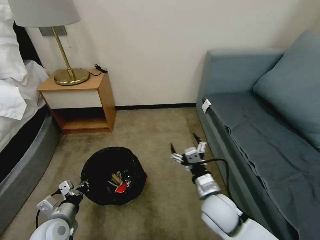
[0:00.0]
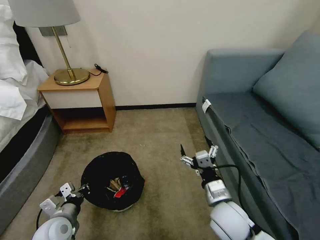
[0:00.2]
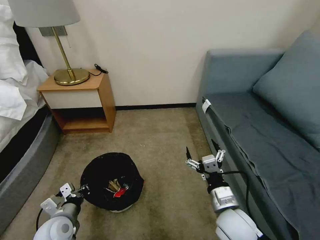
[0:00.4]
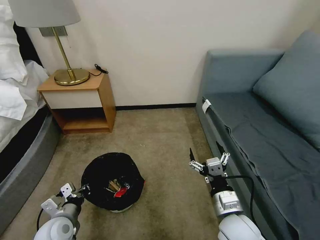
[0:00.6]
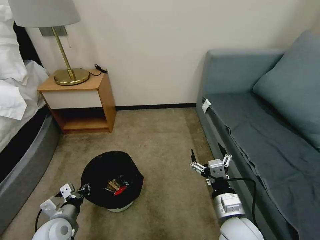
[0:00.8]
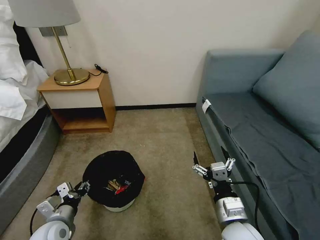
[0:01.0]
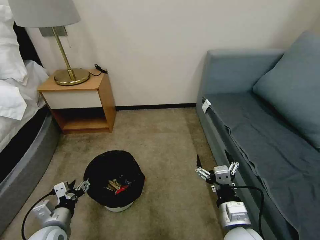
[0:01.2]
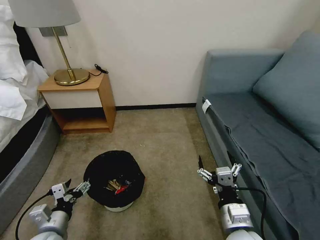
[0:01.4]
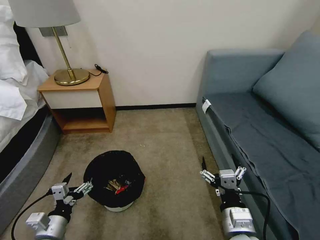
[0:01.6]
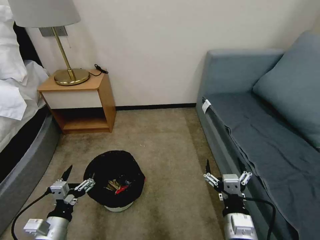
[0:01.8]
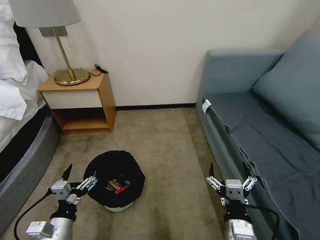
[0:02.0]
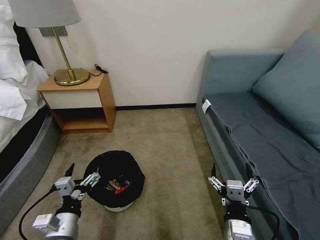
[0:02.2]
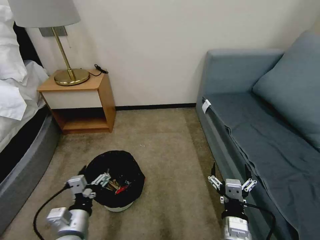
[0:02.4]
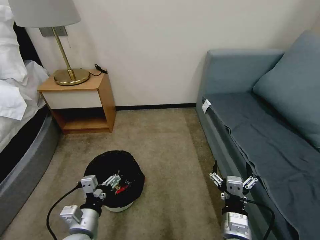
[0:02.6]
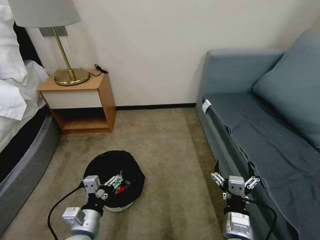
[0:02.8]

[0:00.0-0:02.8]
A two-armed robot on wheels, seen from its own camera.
Task of the whole recording: Pick up the trash bin, then pick up the garbage on the floor and place it into the trash bin.
0:00.0 to 0:01.4: The right gripper shifts some 10 cm backward, while the left gripper opens up.
0:01.4 to 0:02.8: The left gripper moves to the right, approximately 10 cm.

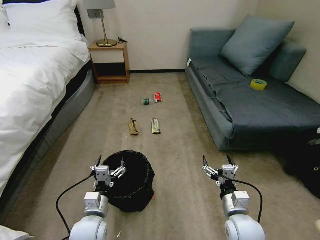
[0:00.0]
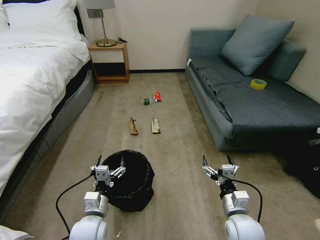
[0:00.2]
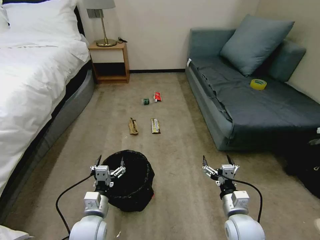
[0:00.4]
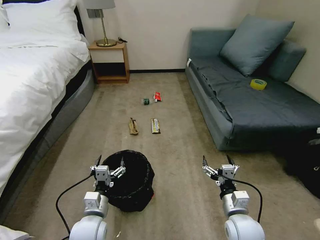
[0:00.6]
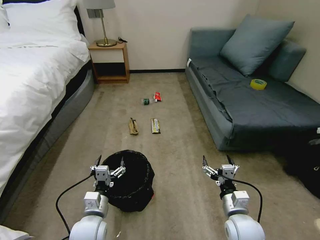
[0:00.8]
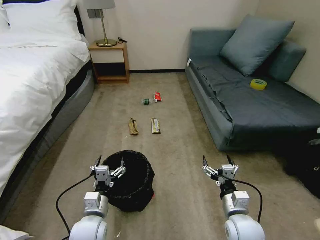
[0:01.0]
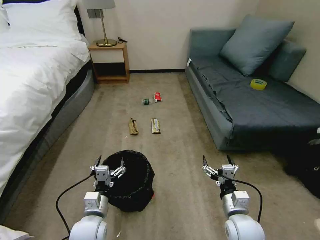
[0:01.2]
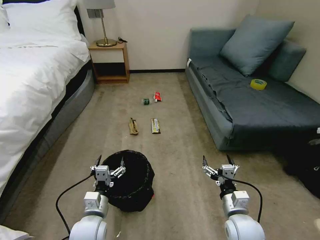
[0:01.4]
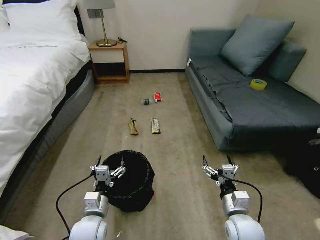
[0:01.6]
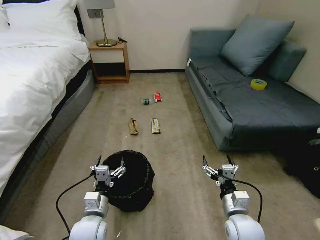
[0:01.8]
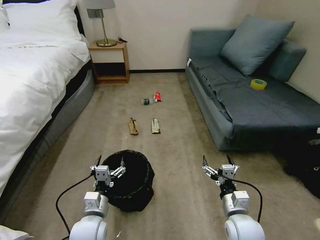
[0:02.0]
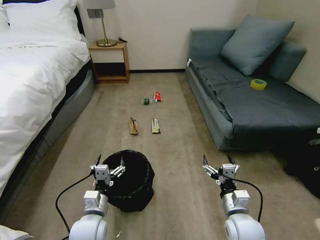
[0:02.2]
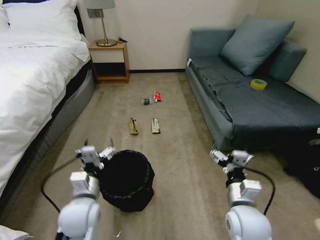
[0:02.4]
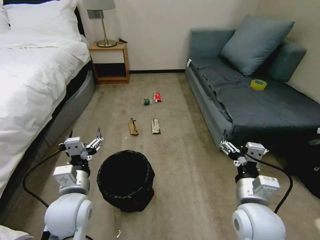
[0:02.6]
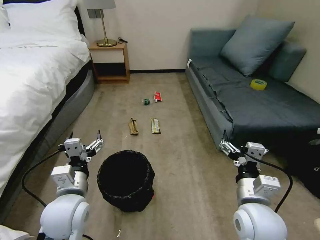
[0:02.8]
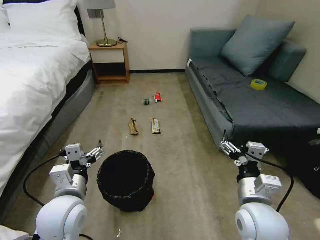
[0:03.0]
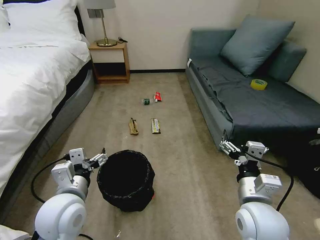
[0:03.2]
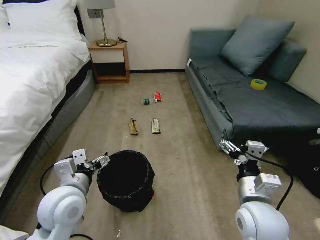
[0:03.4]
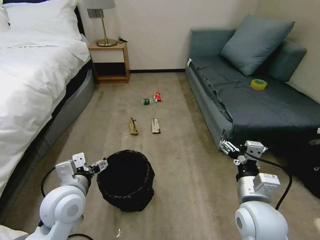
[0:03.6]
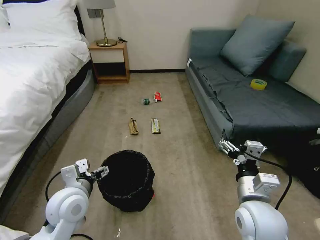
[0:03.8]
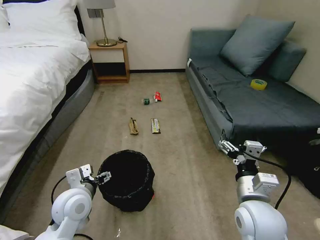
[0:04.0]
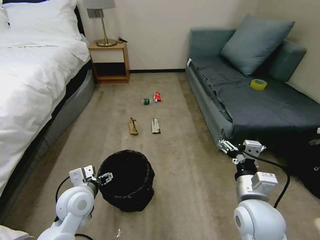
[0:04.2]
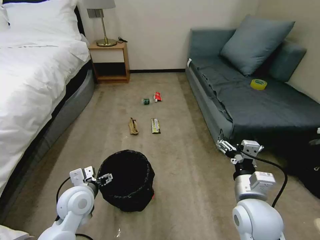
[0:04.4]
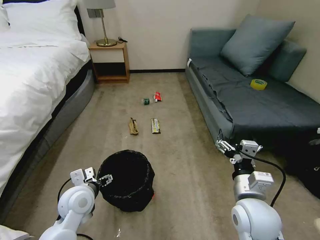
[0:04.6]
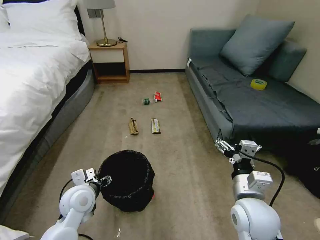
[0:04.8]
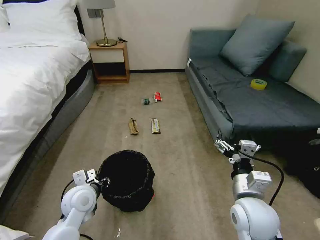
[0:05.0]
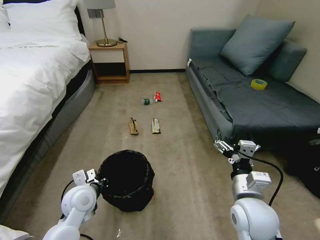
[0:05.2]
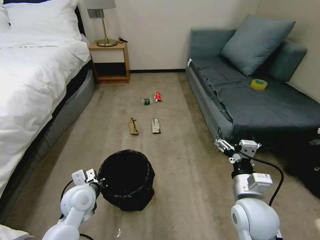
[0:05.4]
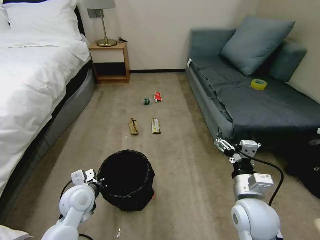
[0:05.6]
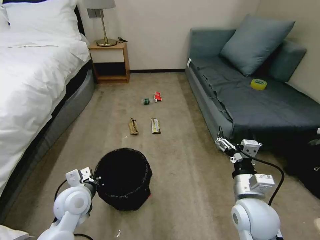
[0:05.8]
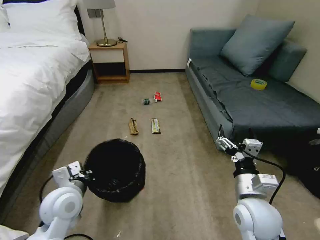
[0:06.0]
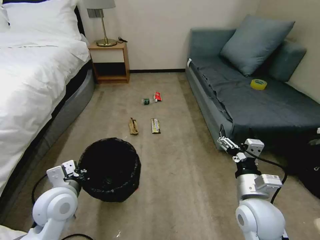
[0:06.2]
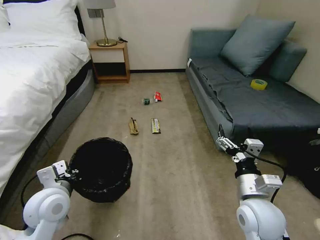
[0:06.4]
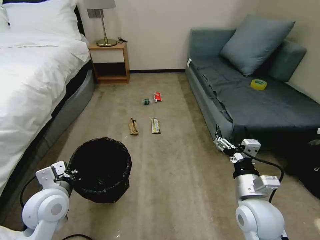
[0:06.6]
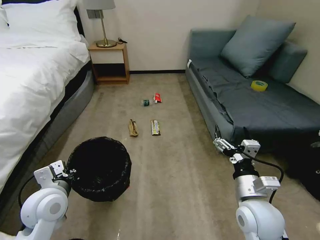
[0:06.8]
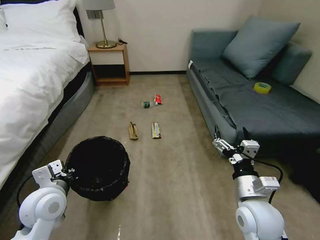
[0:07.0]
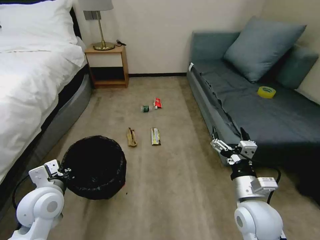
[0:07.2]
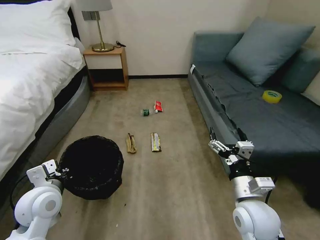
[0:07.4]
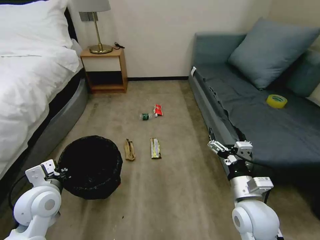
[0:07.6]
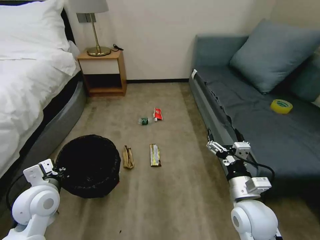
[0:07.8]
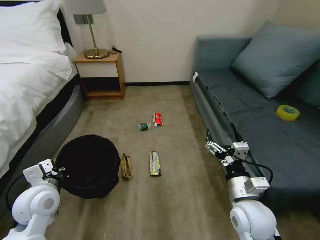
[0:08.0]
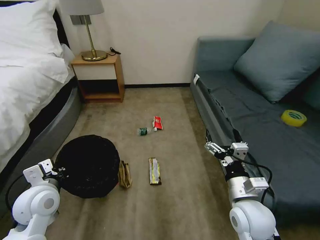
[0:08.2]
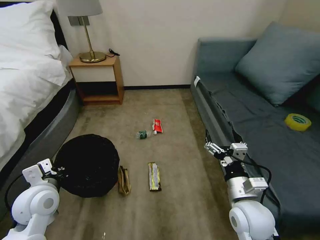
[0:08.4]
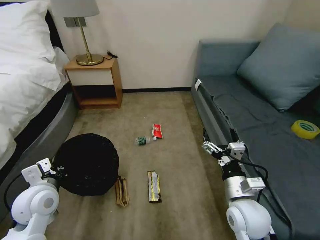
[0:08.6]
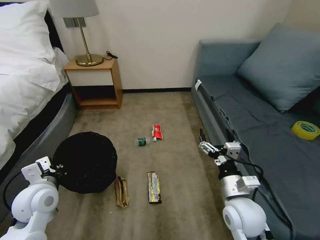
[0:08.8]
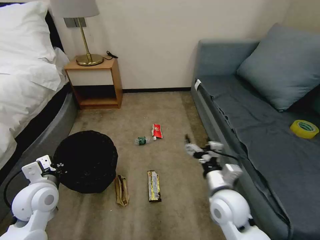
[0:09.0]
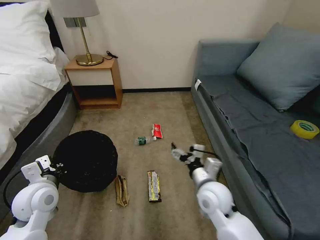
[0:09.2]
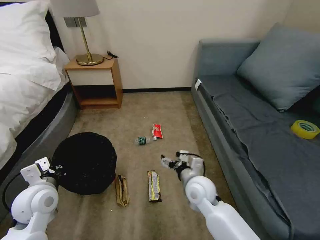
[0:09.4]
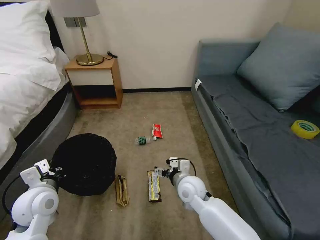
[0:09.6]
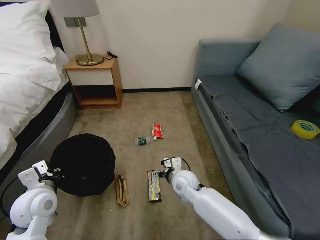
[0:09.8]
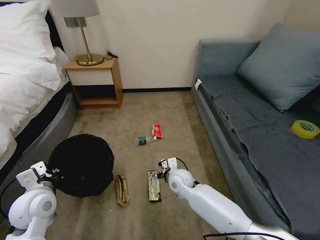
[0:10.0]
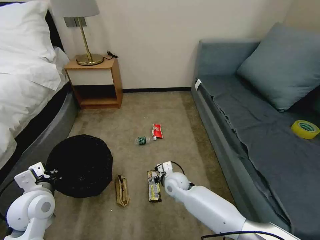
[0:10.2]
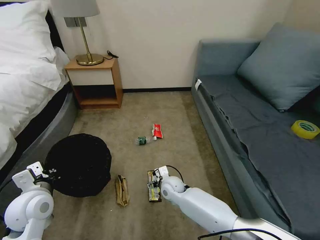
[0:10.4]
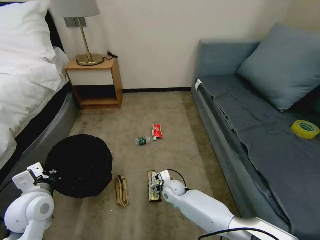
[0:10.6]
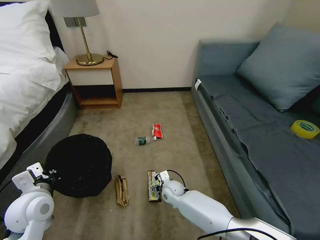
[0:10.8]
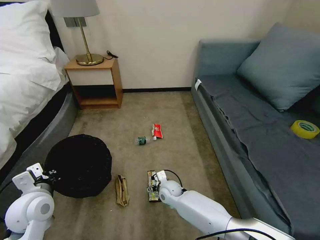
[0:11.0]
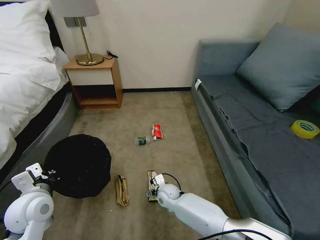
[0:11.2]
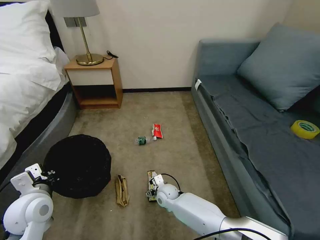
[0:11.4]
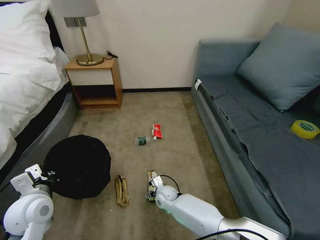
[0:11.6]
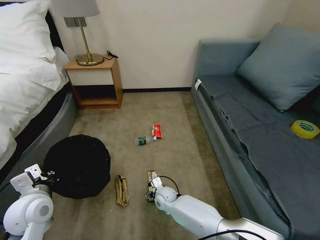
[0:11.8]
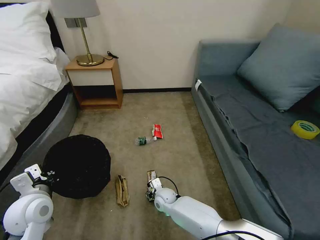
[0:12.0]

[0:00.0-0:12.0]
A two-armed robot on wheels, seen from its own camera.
Task of the whole recording: Pick up the trash bin, then pick up the garbage on the floor and place it into the trash bin.
0:01.6 to 0:03.0: The two grippers go some 15 cm upward.
0:03.0 to 0:04.4: The left gripper shifts approximately 10 cm downward and forward.
0:04.4 to 0:06.0: The left gripper closes its fingers.
0:06.0 to 0:07.6: The left gripper shifts some 5 cm to the left.
0:07.6 to 0:09.0: The right gripper ends up approximately 5 cm from where it was.
0:09.0 to 0:10.4: The right gripper travels downward, to the left and forward by some 25 cm.
0:10.4 to 0:12.0: The right gripper heads downward, covering some 5 cm.

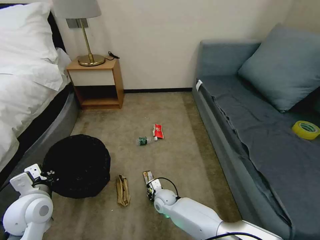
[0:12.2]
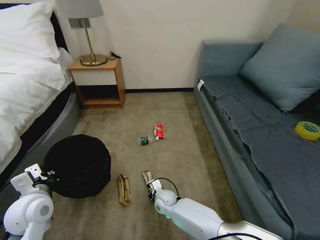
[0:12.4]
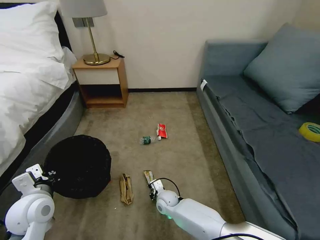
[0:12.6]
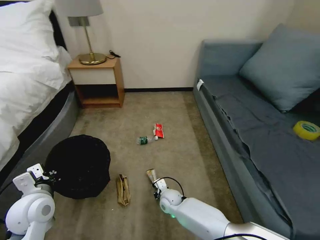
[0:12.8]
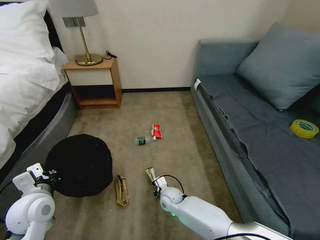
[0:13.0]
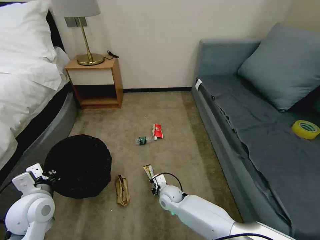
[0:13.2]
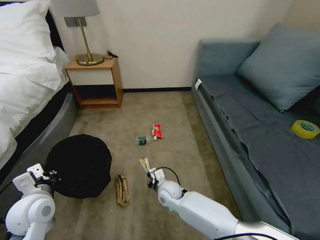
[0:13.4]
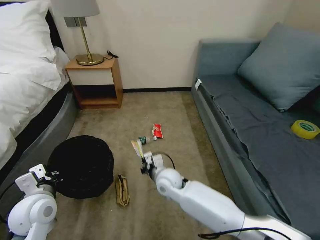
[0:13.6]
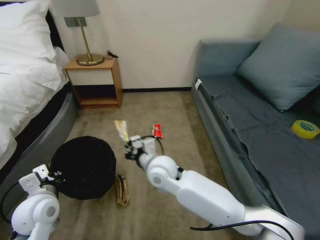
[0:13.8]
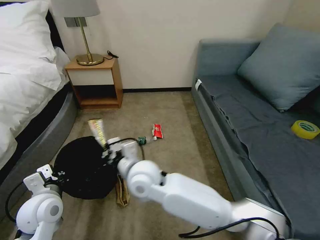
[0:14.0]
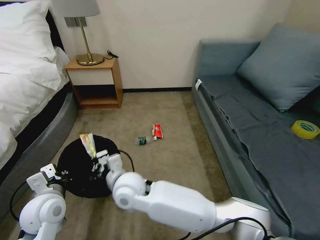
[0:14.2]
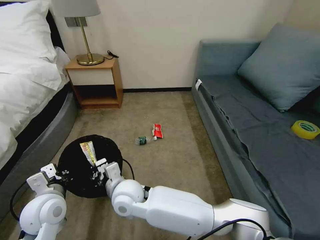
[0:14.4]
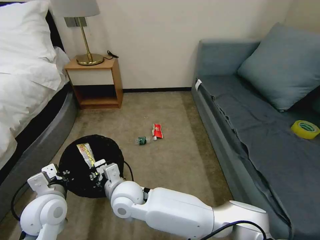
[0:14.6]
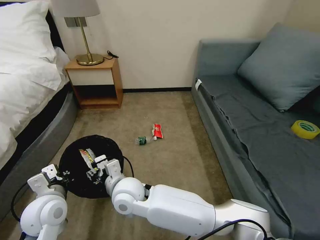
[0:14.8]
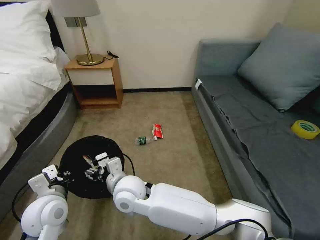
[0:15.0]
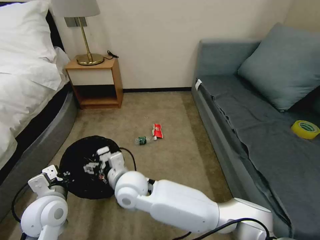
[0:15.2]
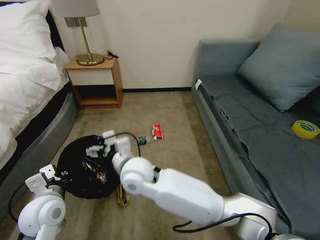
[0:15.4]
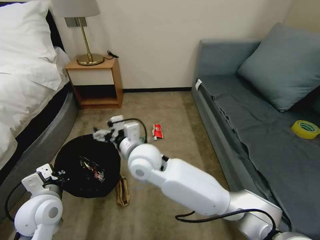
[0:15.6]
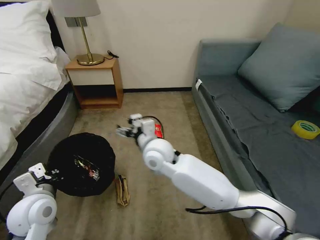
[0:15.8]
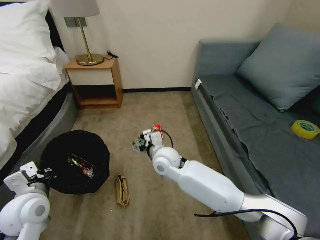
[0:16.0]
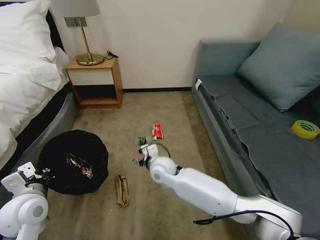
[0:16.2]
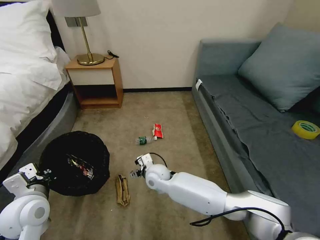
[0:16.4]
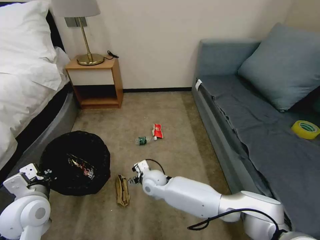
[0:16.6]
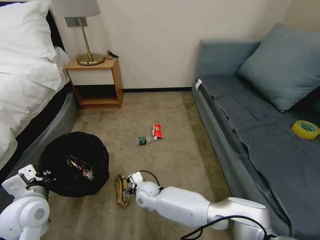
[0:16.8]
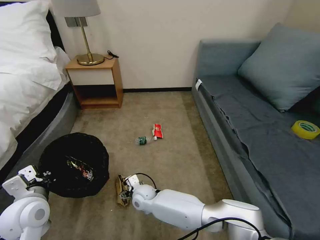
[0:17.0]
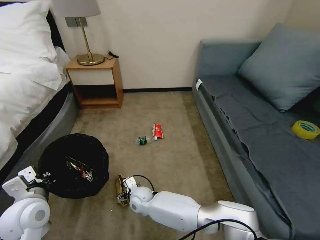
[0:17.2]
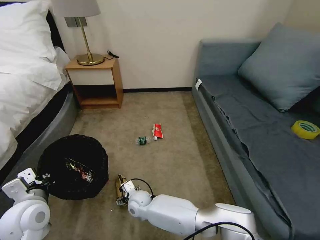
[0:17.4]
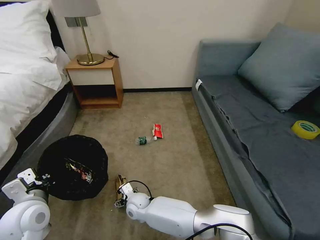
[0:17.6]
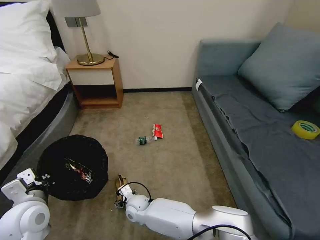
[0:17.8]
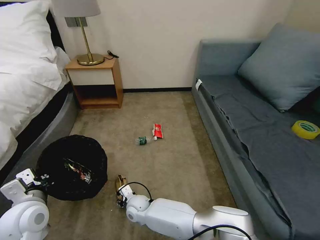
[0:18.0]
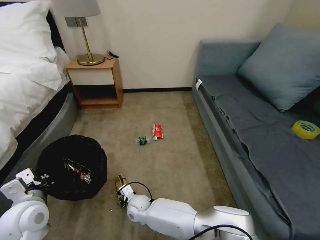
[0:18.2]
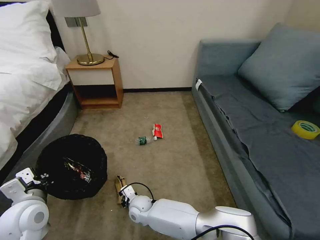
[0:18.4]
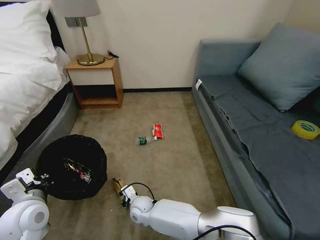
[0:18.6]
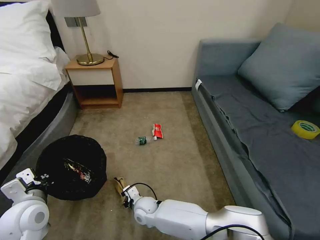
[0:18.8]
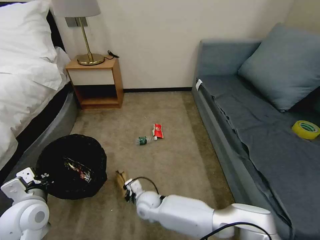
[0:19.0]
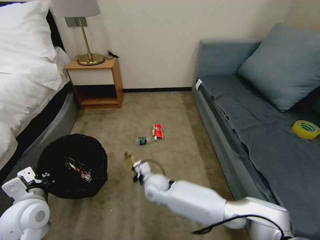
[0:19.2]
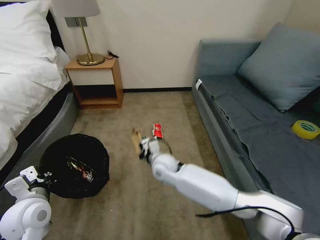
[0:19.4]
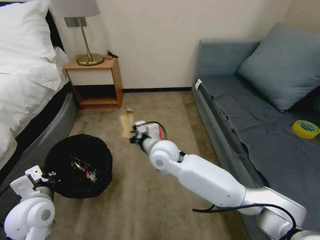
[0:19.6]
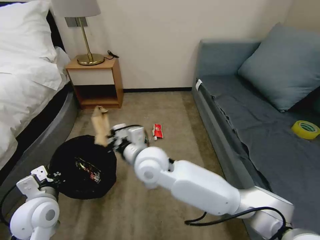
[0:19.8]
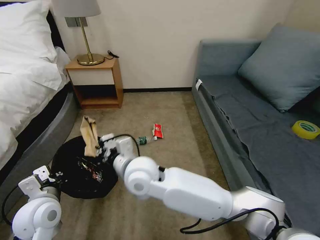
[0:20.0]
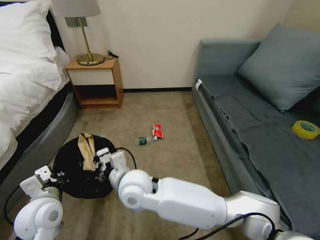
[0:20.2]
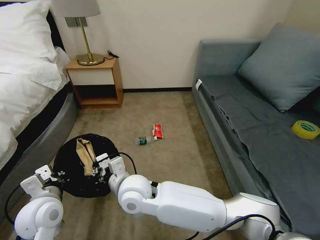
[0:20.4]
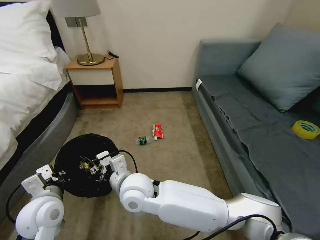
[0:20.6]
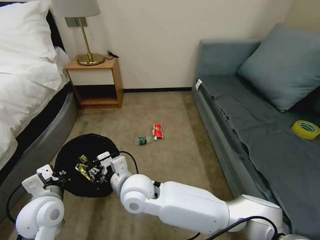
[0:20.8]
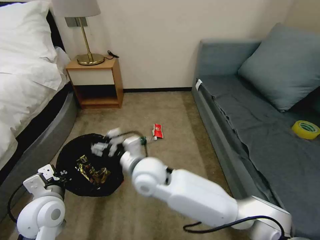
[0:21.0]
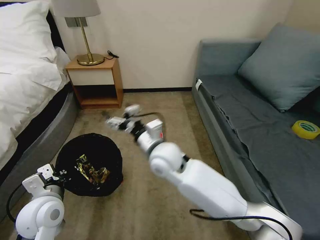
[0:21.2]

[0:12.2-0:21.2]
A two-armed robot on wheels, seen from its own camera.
Task of the whole recording: Pick up the trash bin, then pick up the garbage on the floor and place it into the trash bin.
0:12.2 to 0:13.8: The right gripper heads upward, covering roughly 25 cm, and closes up.
0:13.8 to 0:15.2: The right gripper moves to the left and backward, roughly 10 cm, and opens up.
0:15.2 to 0:16.6: The right gripper shifts some 20 cm downward, forward and to the right.
0:16.6 to 0:18.2: The right gripper travels downward, backward and to the left by roughly 15 cm, and closes its fingers.
0:18.2 to 0:19.8: The right gripper is displaced upward by some 30 cm, and closes.
0:19.8 to 0:21.2: The right gripper opens.
